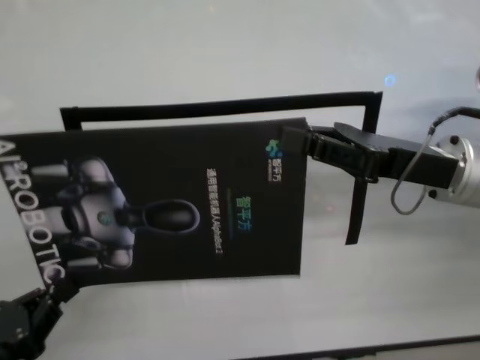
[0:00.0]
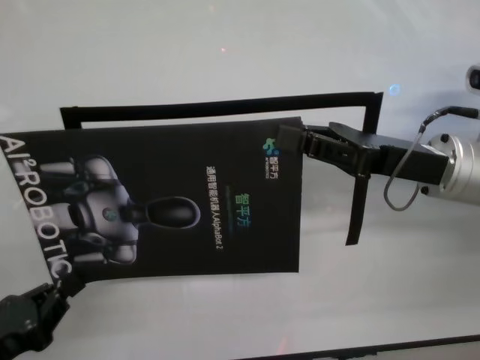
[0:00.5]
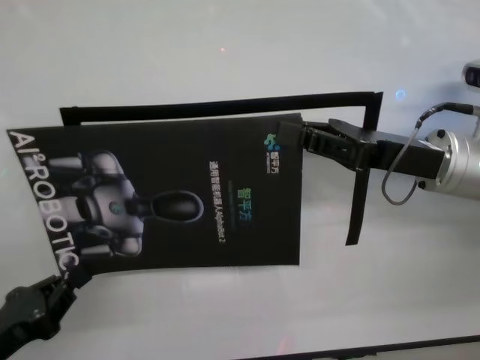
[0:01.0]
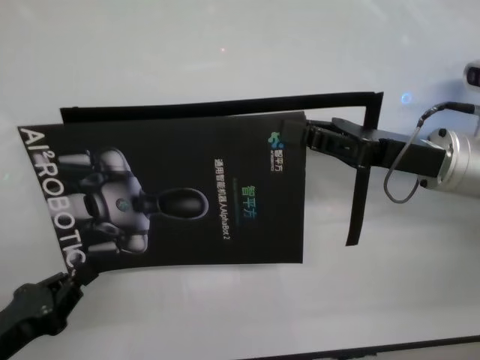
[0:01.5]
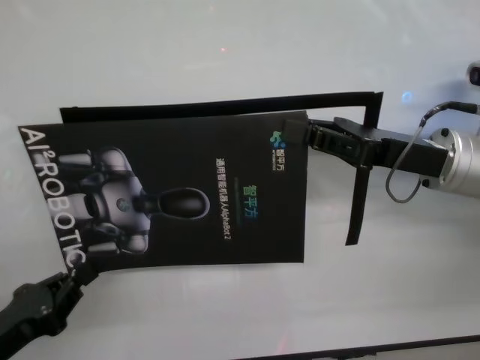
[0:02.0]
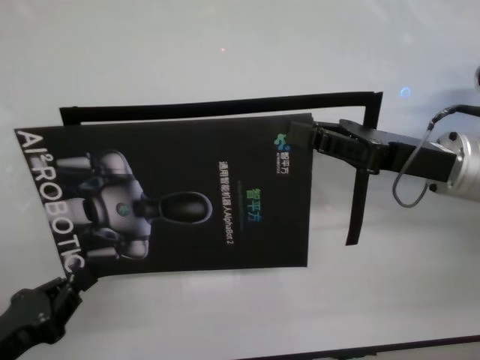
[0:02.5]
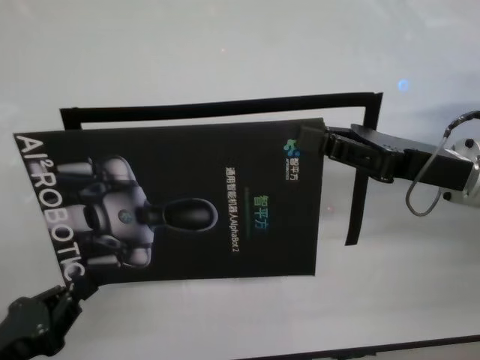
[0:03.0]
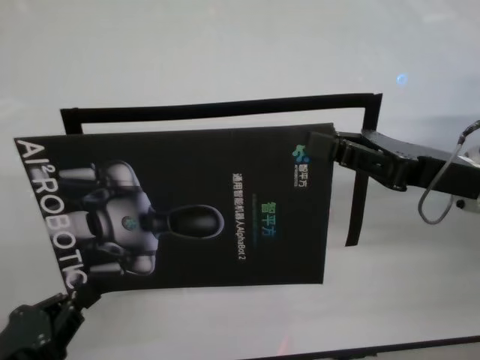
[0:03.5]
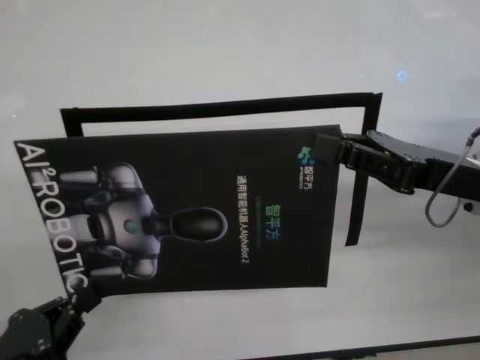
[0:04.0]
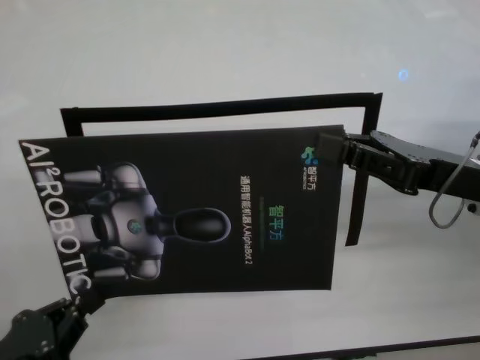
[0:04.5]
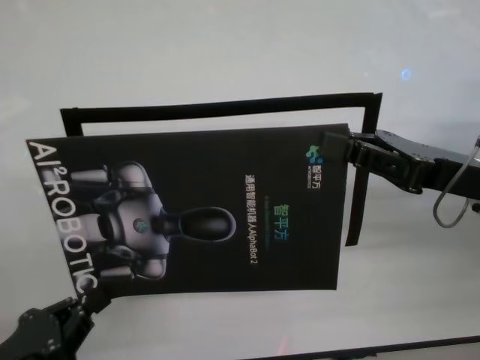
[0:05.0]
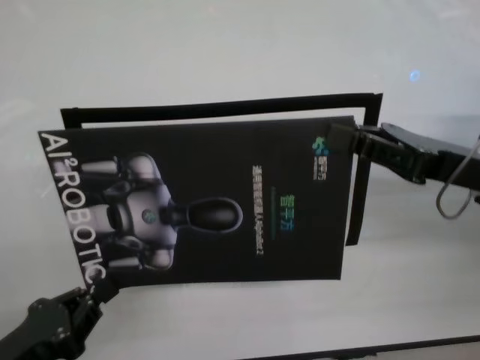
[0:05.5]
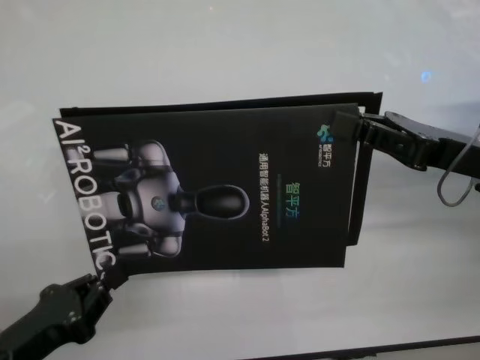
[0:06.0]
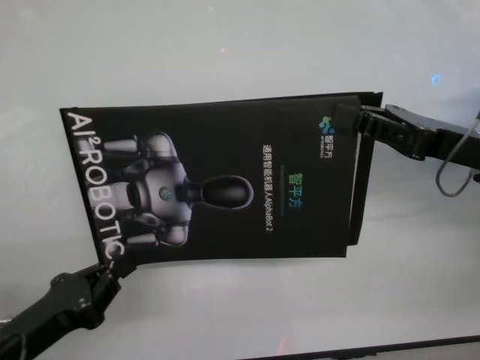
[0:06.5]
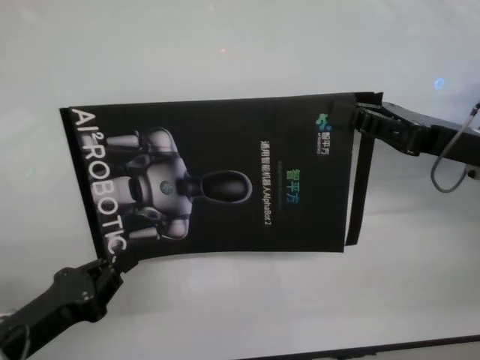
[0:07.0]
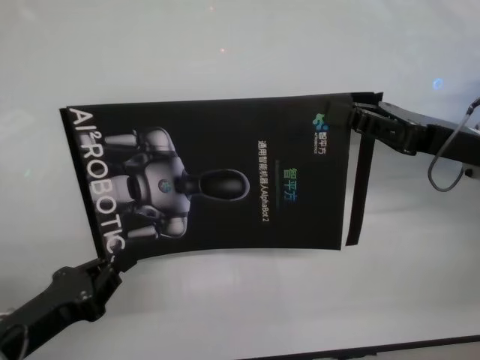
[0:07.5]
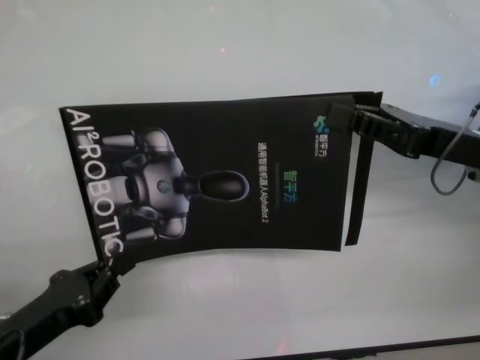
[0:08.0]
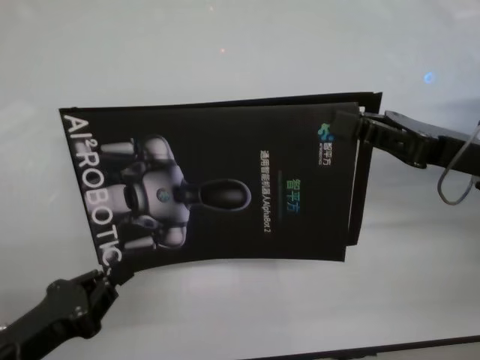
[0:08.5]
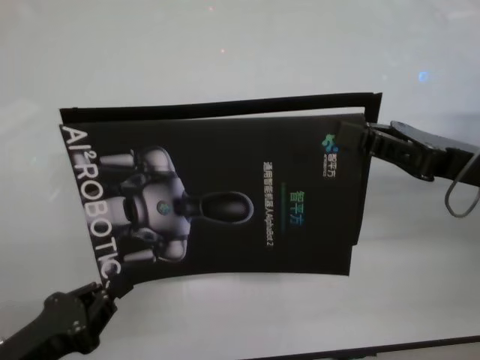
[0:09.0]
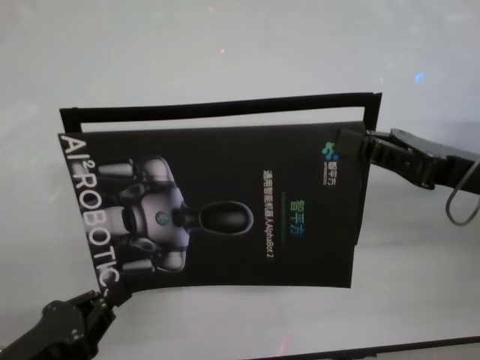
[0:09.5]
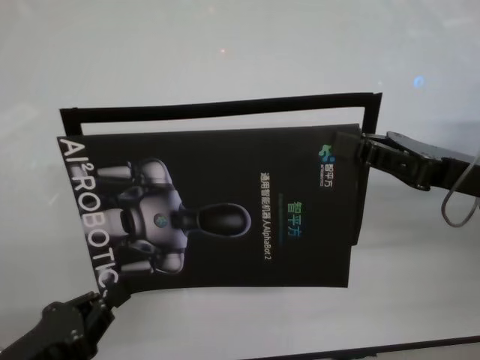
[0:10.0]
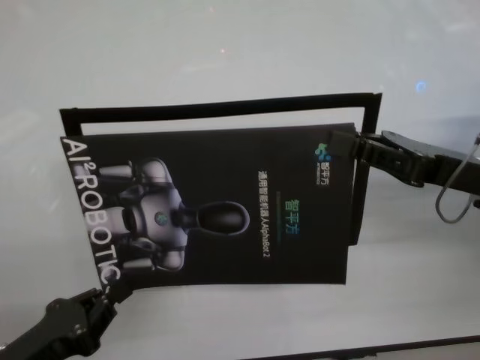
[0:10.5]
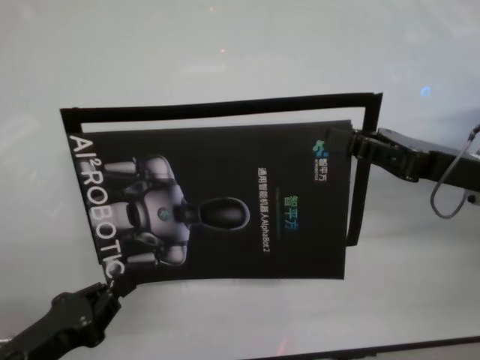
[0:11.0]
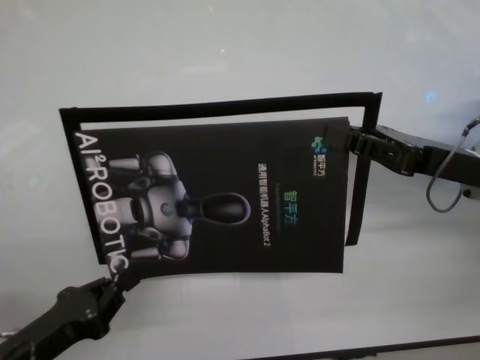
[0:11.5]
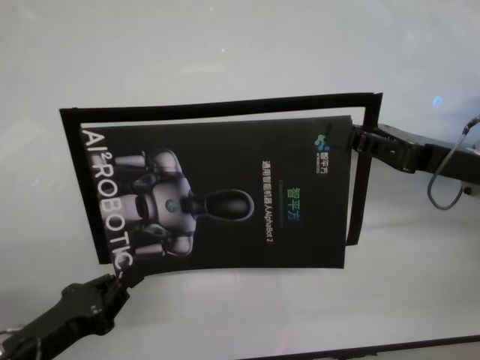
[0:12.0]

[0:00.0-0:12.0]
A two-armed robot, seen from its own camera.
Task of the whole recording: stick the poster on the table by hand.
Step, 0:00.0 to 0:11.5: Stick the advertisement in the top-right corner area with both grippers.
